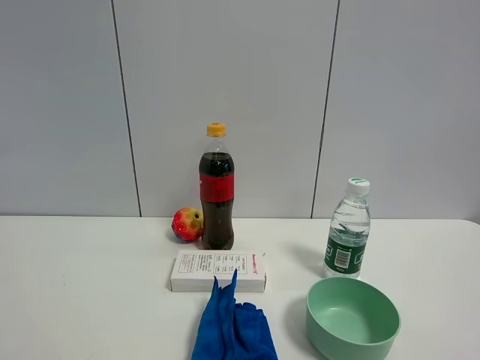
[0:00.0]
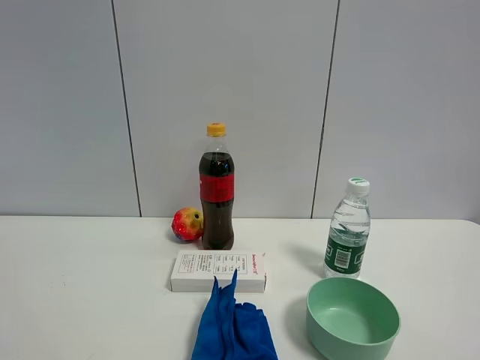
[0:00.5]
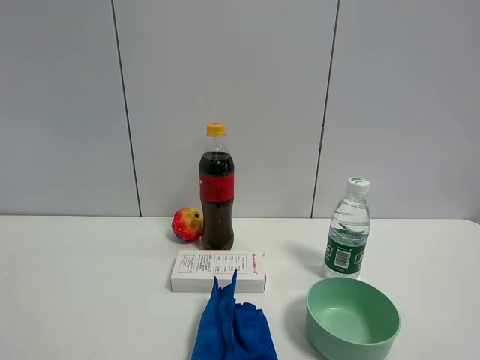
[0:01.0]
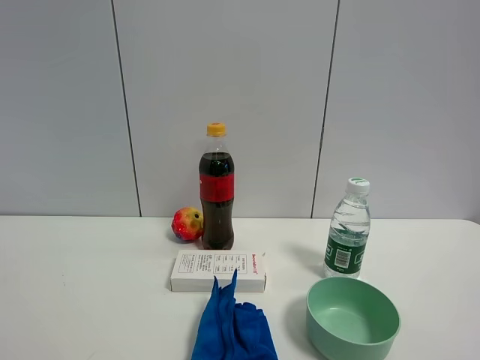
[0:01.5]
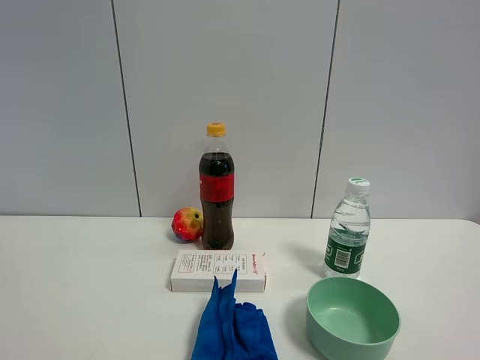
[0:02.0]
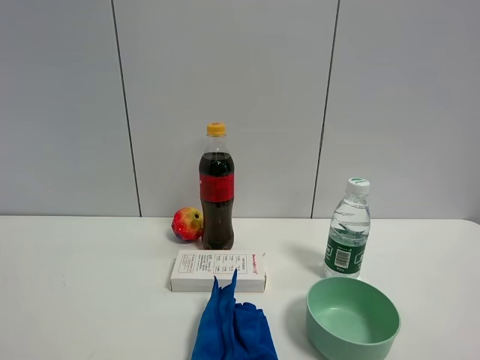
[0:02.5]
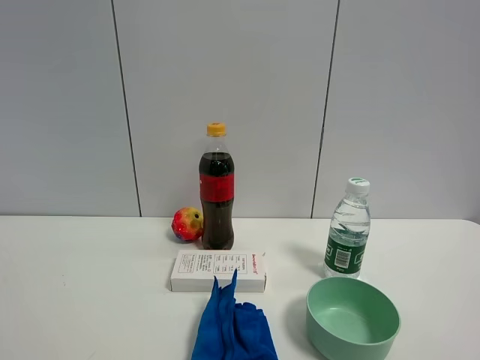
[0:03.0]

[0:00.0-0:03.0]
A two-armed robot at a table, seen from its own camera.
Task of the whole recording: the gripper move the object.
0:01.5 to 0:03.0: Both grippers stay about where they are.

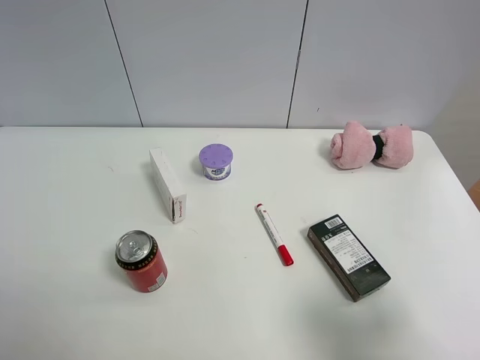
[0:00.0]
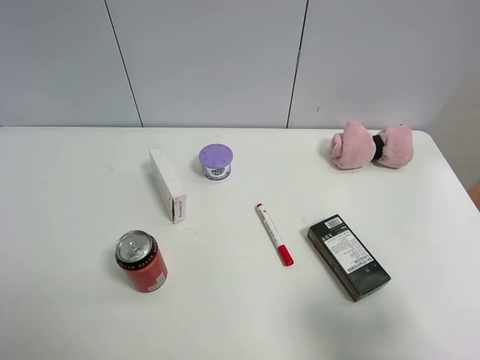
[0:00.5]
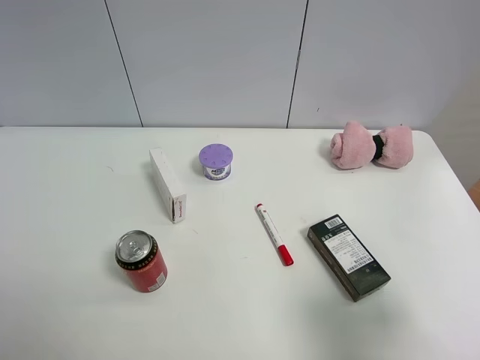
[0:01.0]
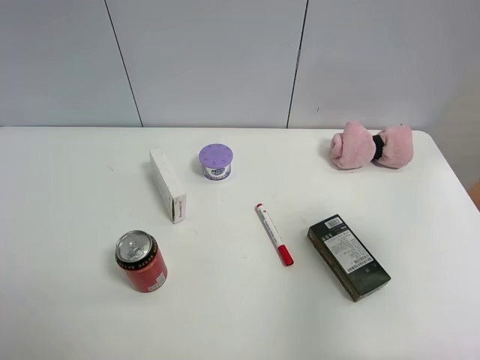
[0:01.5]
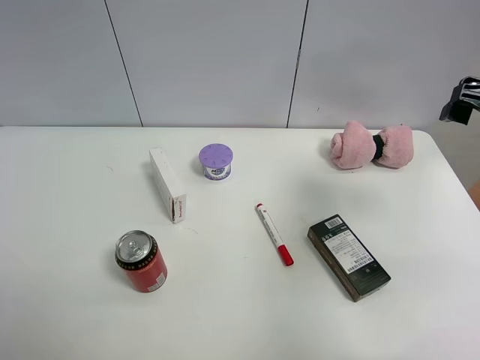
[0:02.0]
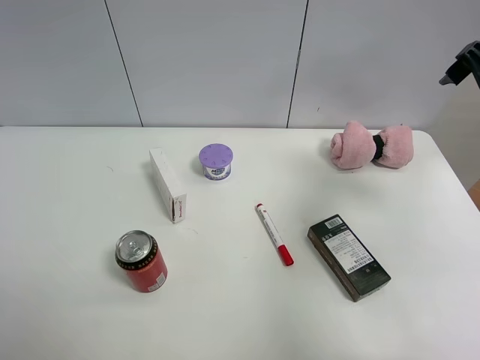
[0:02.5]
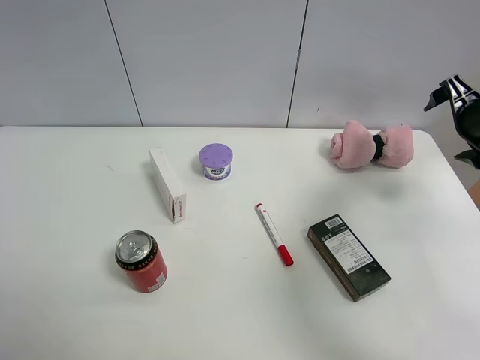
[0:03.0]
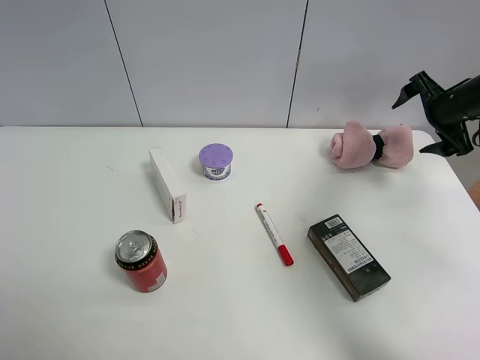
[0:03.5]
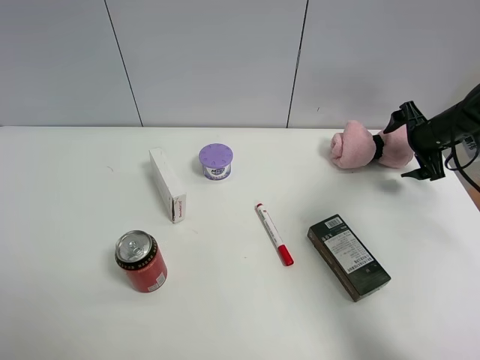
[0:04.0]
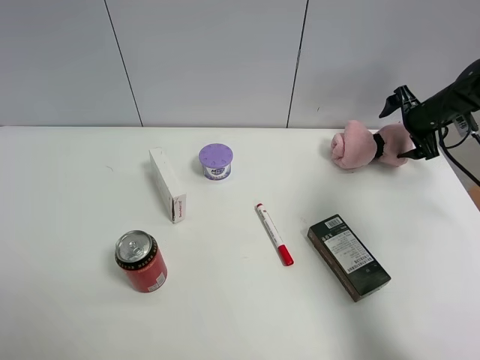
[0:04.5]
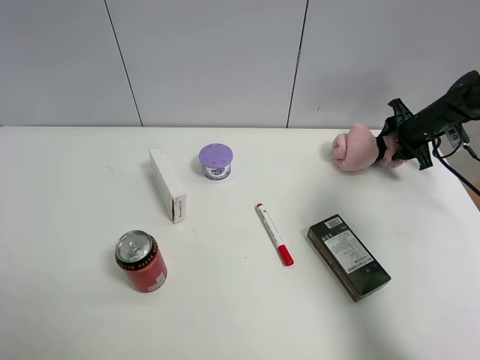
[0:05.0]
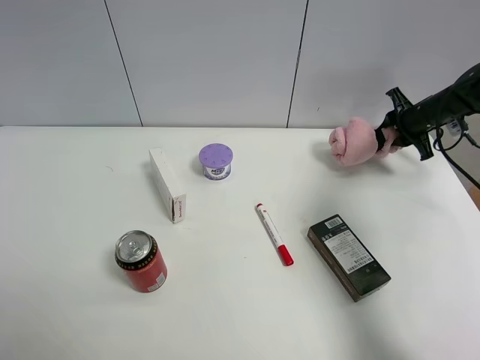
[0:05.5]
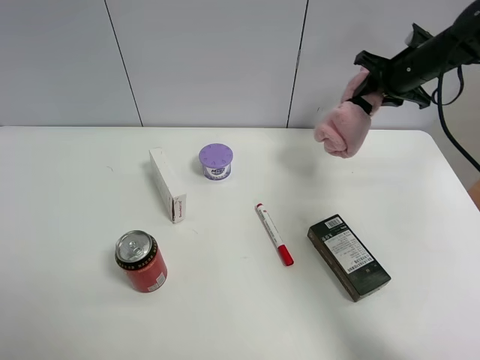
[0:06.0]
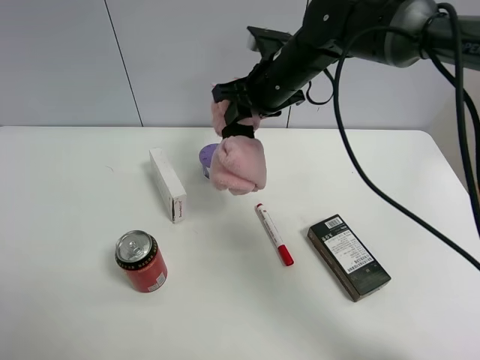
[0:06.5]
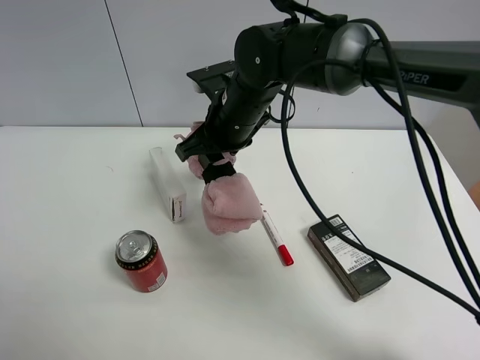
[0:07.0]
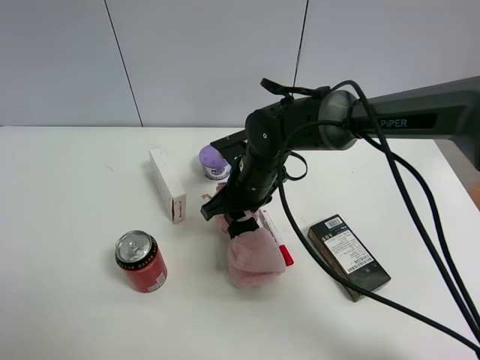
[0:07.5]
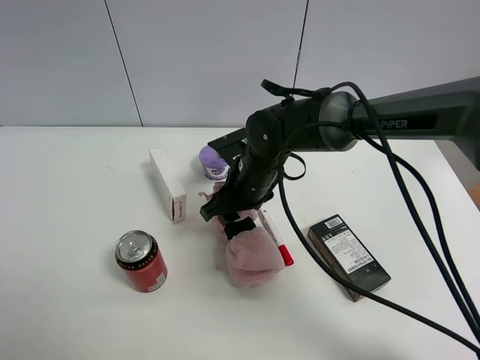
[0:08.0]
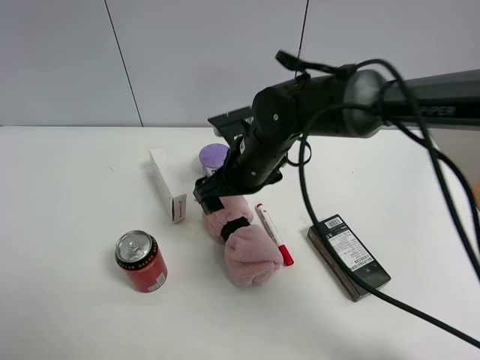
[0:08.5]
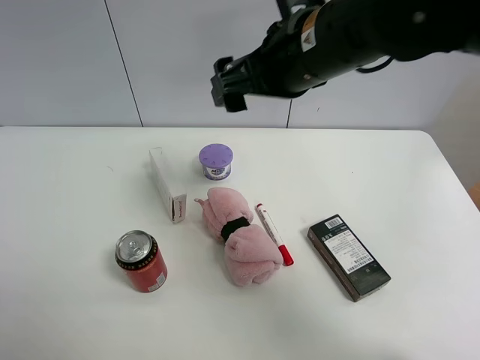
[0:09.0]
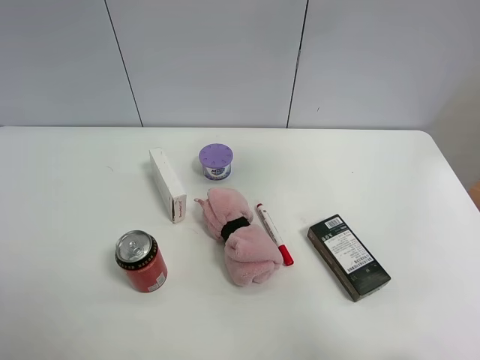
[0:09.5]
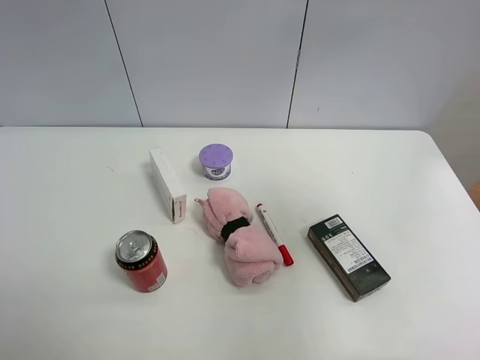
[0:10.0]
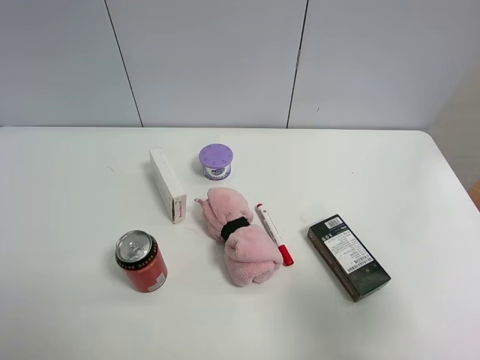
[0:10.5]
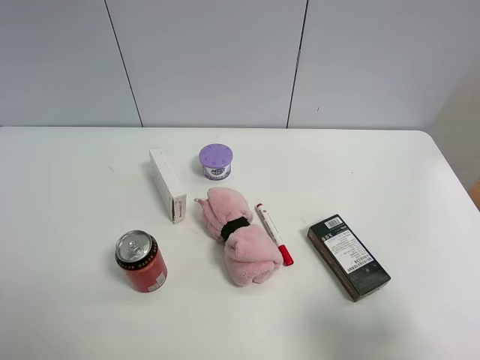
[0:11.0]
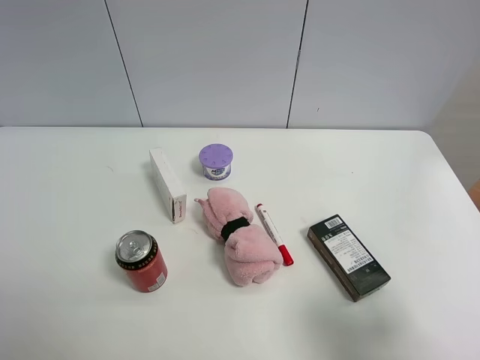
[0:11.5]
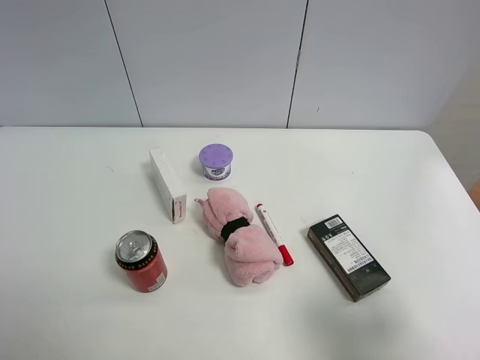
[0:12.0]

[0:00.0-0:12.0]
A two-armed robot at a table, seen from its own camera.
Task of the whole recording: the gripper move the object.
Step, 0:00.0 to 0:05.0: Grasp the pink towel with the right gripper.
Step, 0:05.5 to 0:08.0: Place the pink towel on the table with the right gripper.
0:00.0 to 0:02.0: The right gripper moves forward, some 25 cm.
0:02.0 to 0:04.0: The right gripper is displaced forward and downward by approximately 25 cm.
0:04.0 to 0:06.0: The right gripper moves upward and to the left, some 15 cm, and closes.
0:06.0 to 0:08.0: The right gripper goes some 30 cm to the left and backward.
0:08.0 to 0:10.0: The right gripper is displaced upward, to the right and backward by some 50 cm, and opens its fingers.
0:10.0 to 0:12.0: The right gripper is displaced downward and backward by roughly 20 cm.
